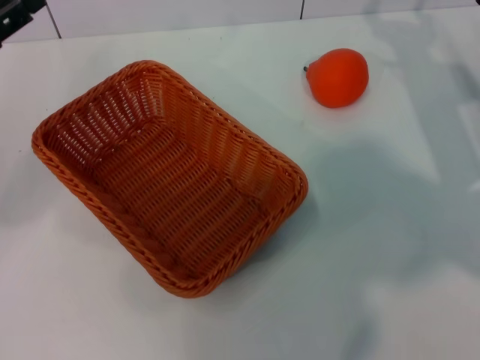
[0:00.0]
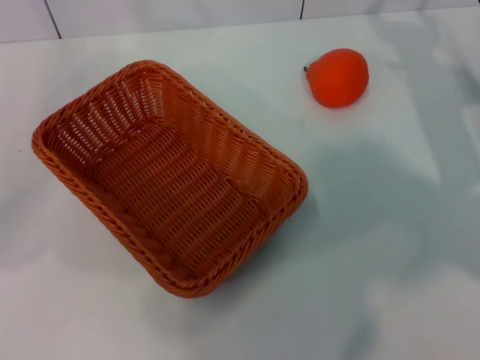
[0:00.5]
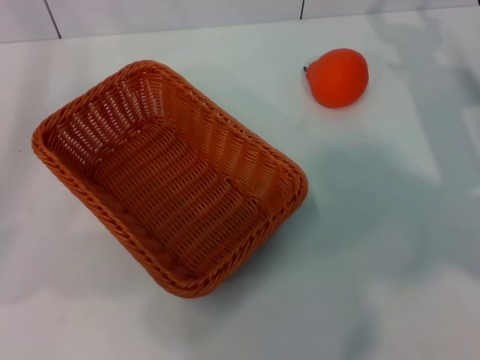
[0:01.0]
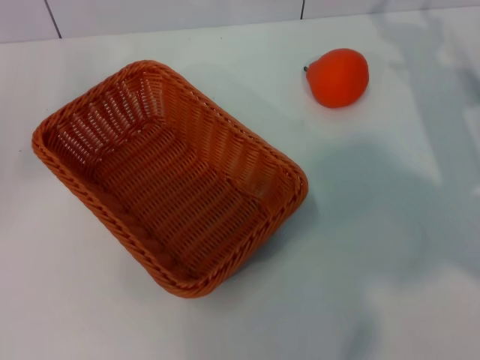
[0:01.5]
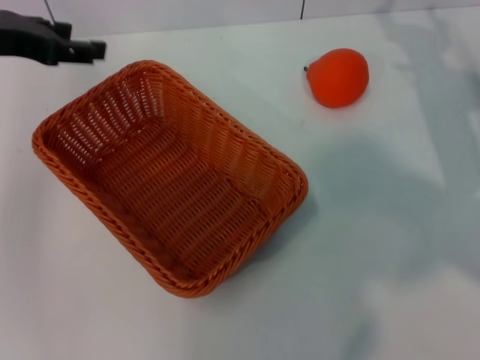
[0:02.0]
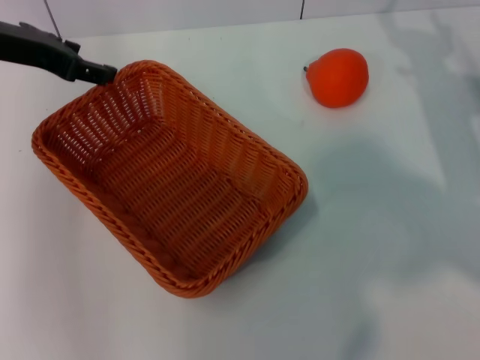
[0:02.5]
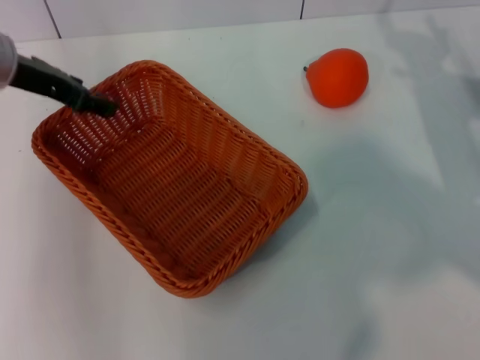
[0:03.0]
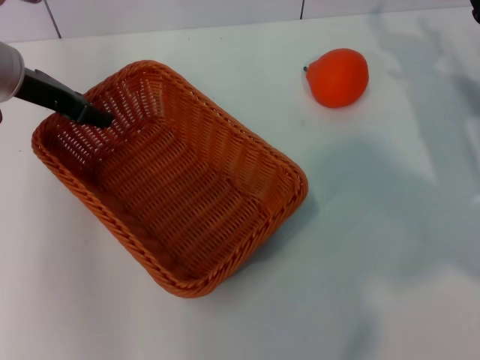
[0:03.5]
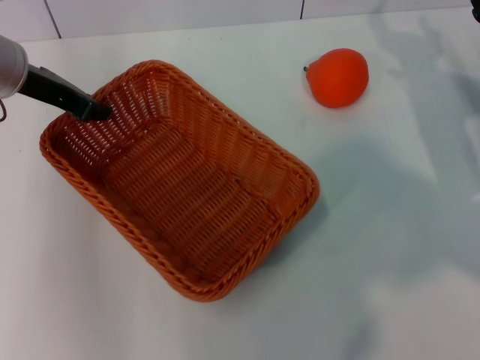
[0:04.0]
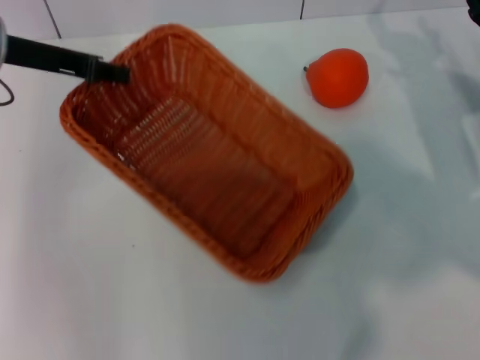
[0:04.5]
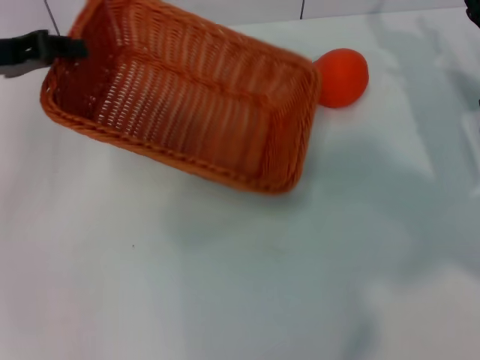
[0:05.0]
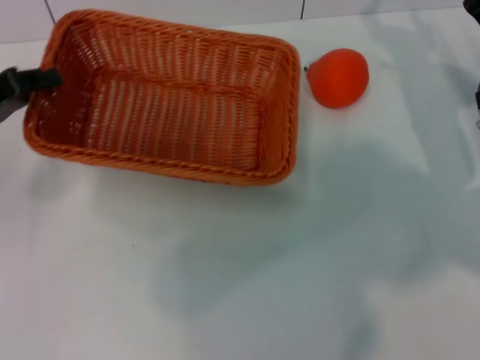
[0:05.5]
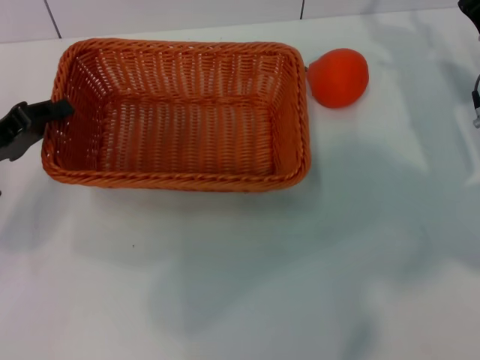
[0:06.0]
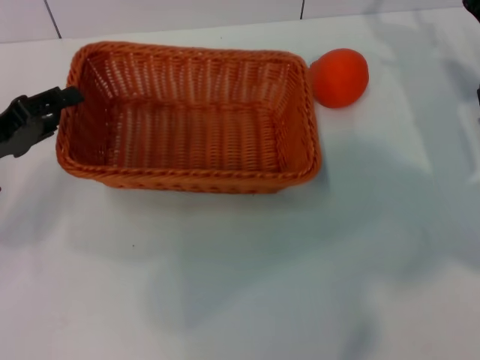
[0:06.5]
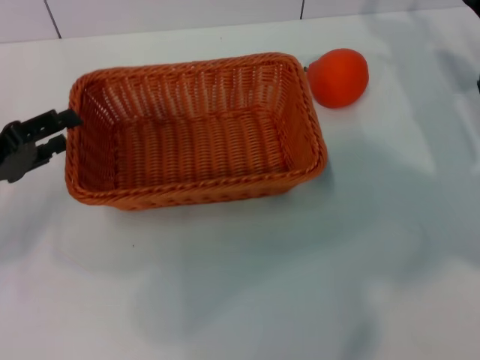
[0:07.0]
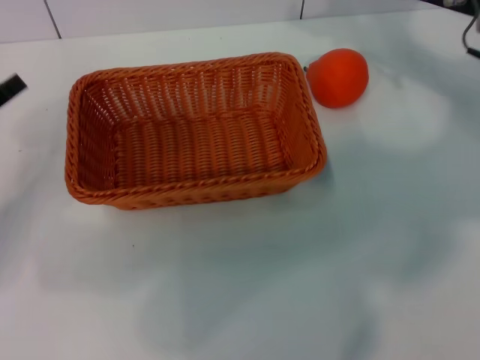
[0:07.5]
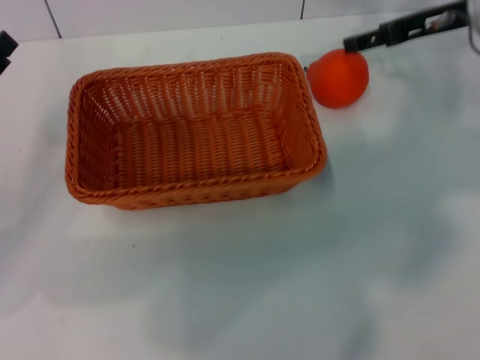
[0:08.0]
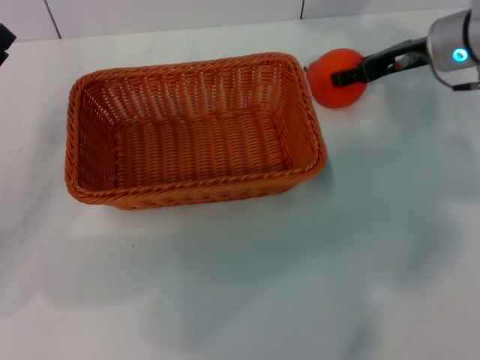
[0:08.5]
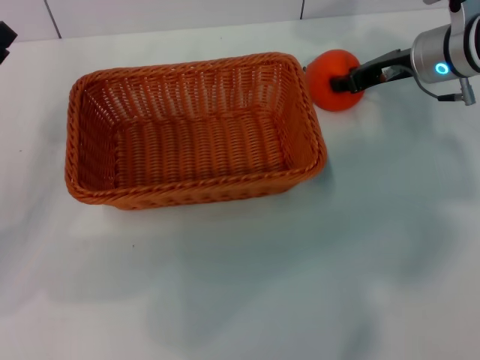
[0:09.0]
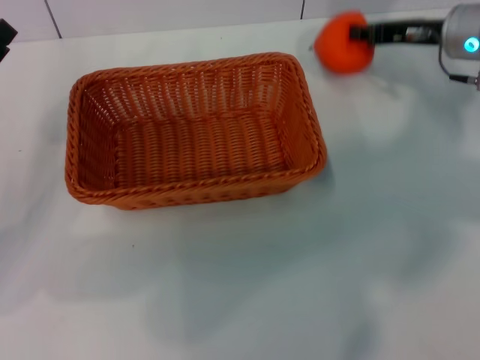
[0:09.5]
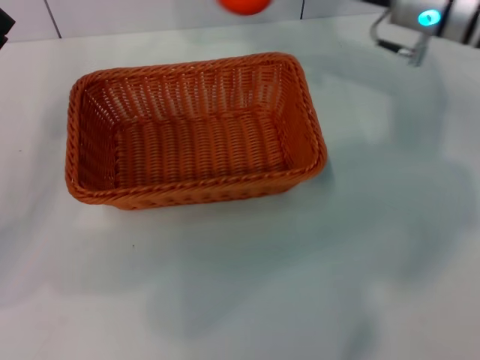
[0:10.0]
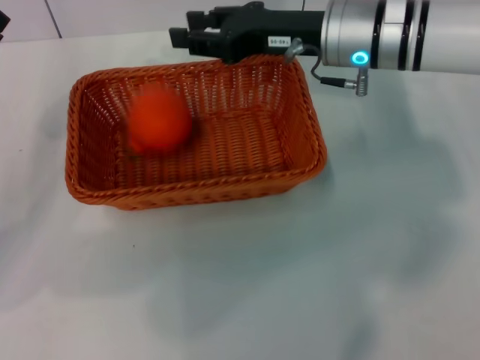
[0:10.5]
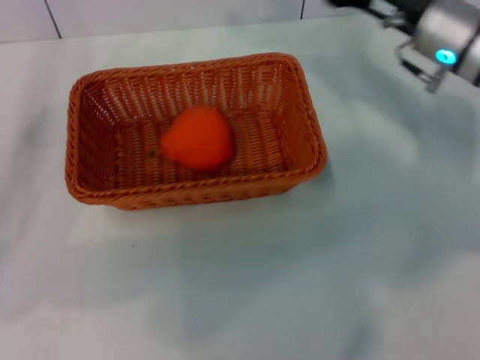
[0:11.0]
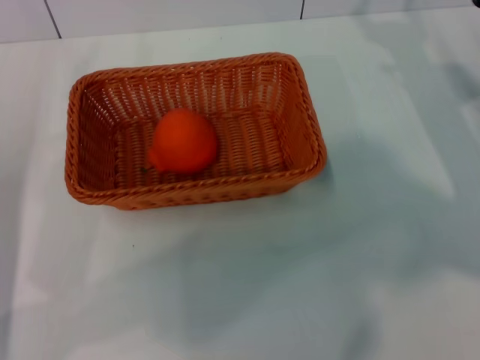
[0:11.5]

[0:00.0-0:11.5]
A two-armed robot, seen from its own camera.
Task of the whole recording: the left gripper pick up the yellow basket and place it horizontally in the middle of the table, the right gripper pick up the orange and place it into the yellow basket.
Step, 0:00.0 to 0:04.5: Pick up the light basket with the left gripper.
Step, 0:05.0 to 0:07.0: Place the light basket in the center of view with the left gripper.
Step, 0:07.5 to 0:09.0: Pick up the orange with the right gripper.
Step, 0:09.5 to 0:10.5: Place the orange into the light basket with the right gripper.
0:00.0 to 0:02.0: The left gripper shifts about 10 cm upward and forward.
0:02.0 to 0:04.0: The left gripper moves some 5 cm, and closes.
0:04.0 to 0:06.0: The left gripper travels backward, downward and to the left by roughly 15 cm.
0:06.0 to 0:07.5: The left gripper opens, while the right gripper heads upward and forward, covering some 10 cm.
0:07.5 to 0:09.5: The right gripper closes its fingers.
0:09.5 to 0:11.5: The right gripper goes approximately 10 cm backward, reaches roughly 15 cm to the left, then returns, and opens up.
